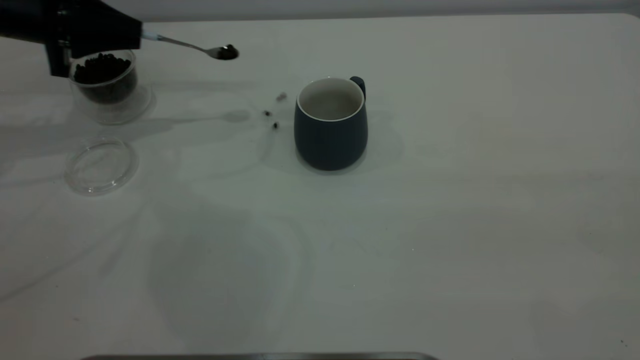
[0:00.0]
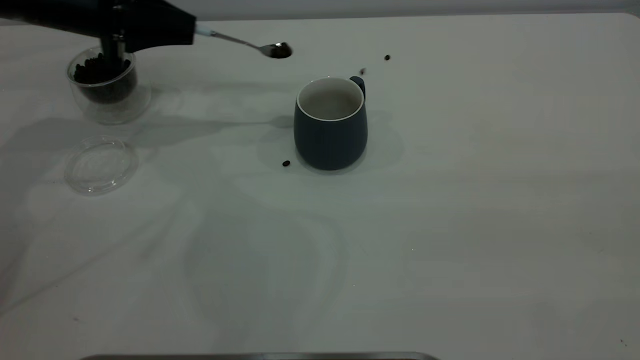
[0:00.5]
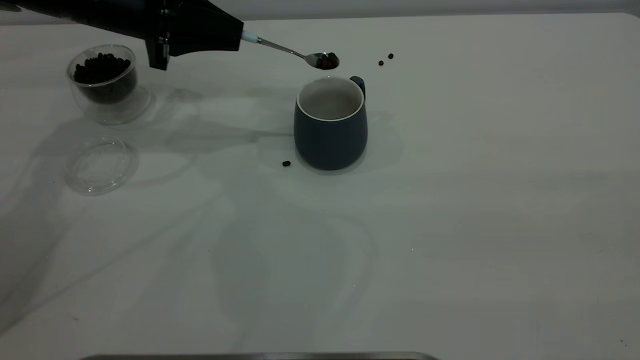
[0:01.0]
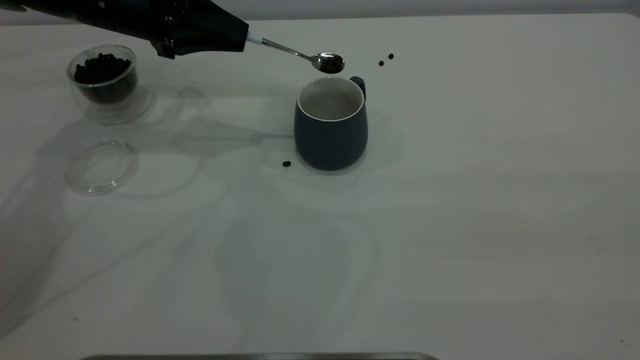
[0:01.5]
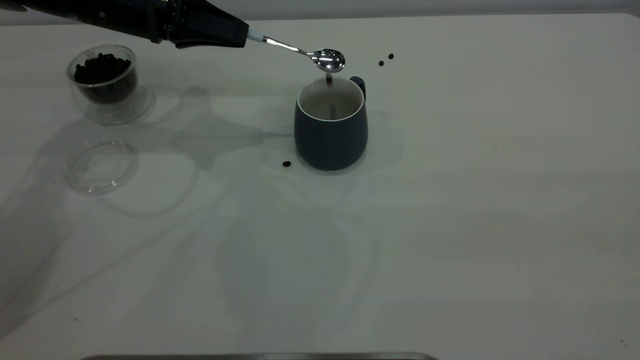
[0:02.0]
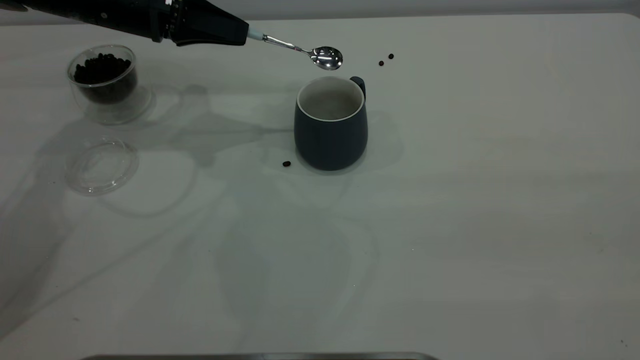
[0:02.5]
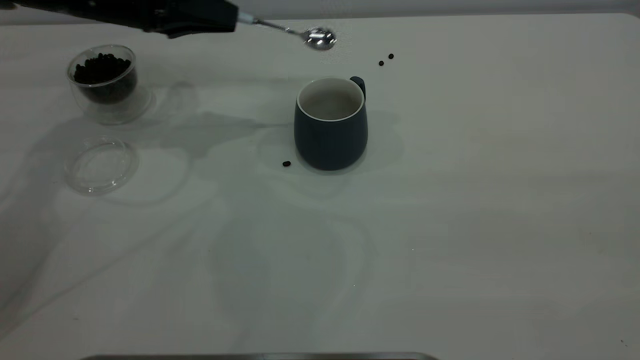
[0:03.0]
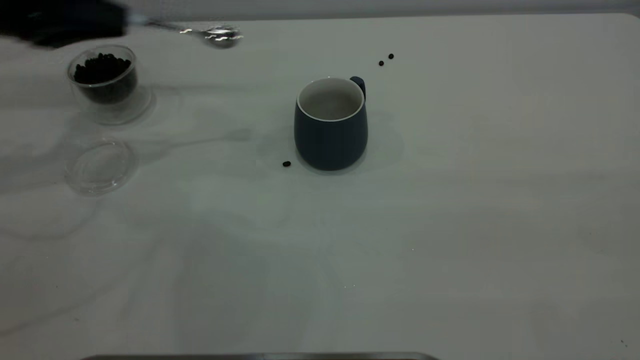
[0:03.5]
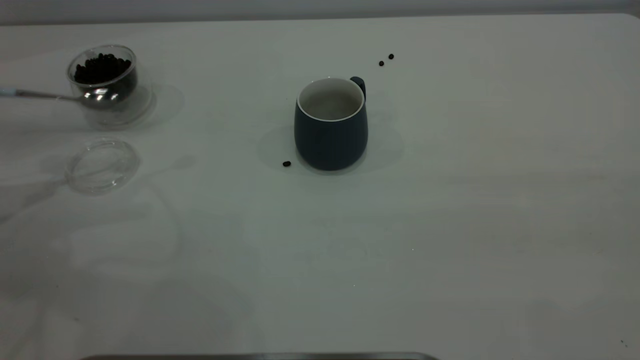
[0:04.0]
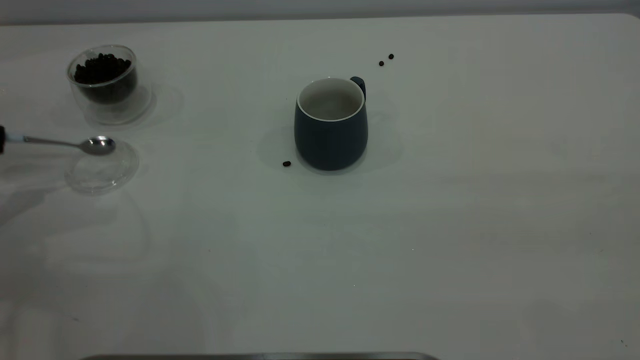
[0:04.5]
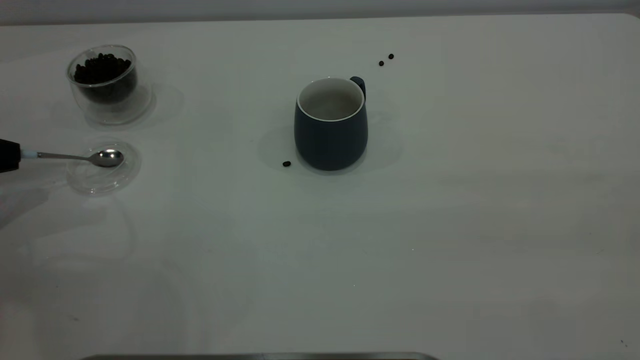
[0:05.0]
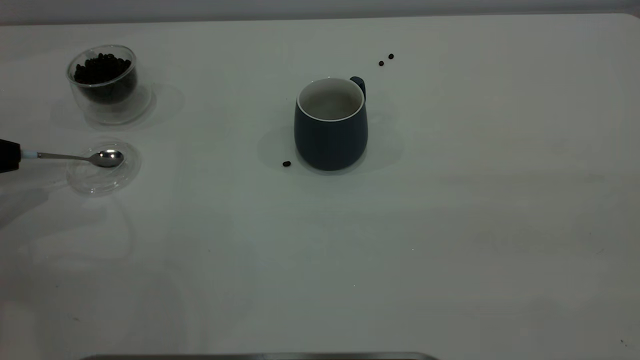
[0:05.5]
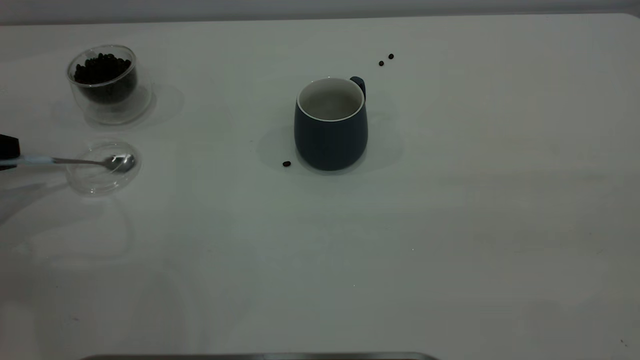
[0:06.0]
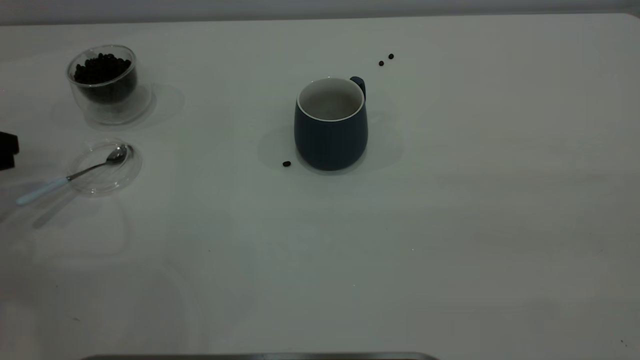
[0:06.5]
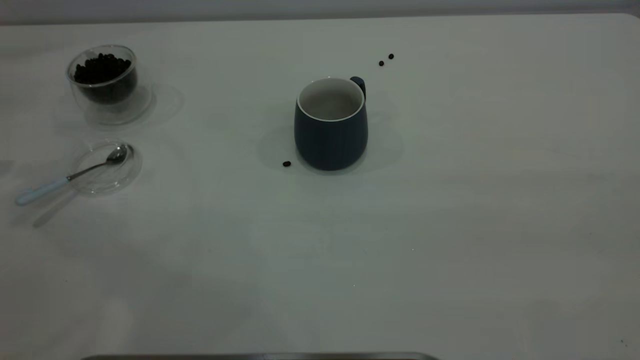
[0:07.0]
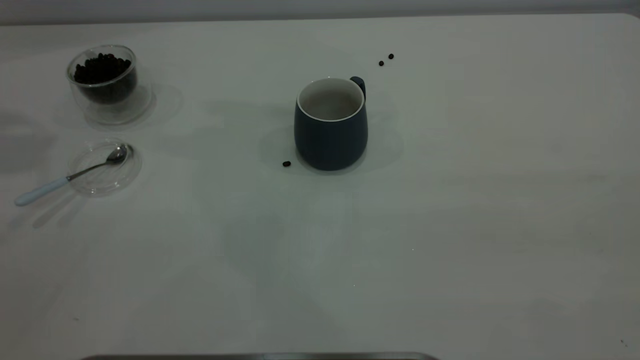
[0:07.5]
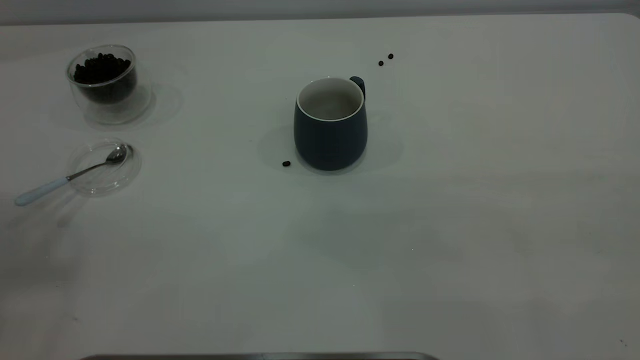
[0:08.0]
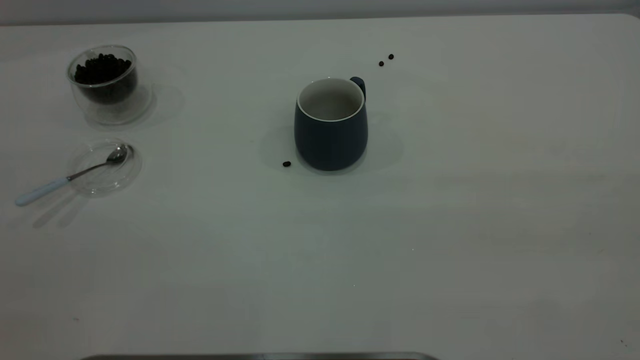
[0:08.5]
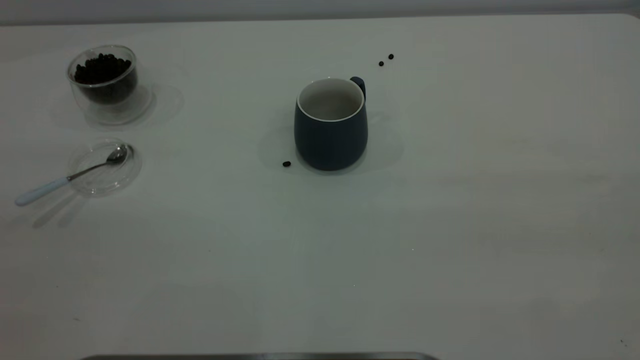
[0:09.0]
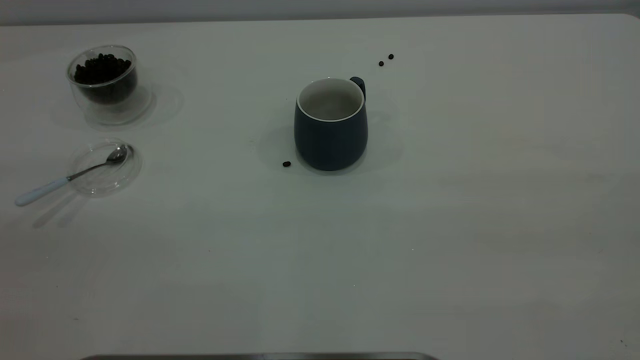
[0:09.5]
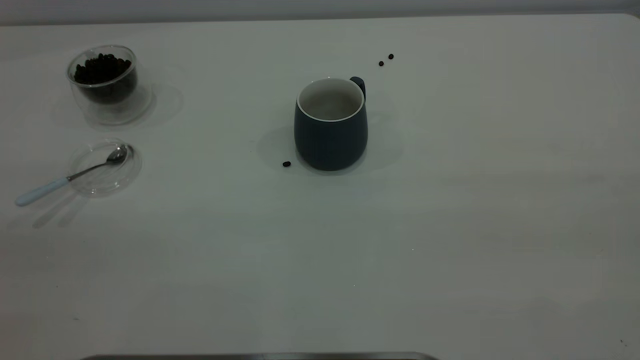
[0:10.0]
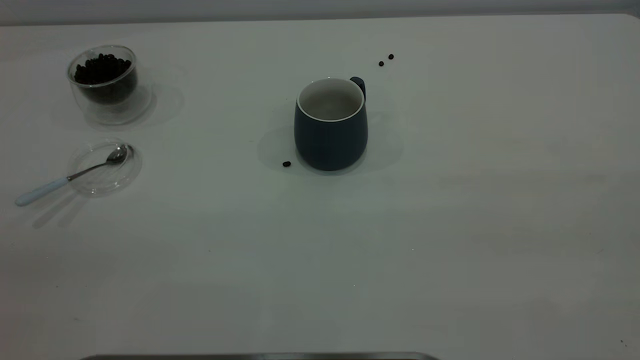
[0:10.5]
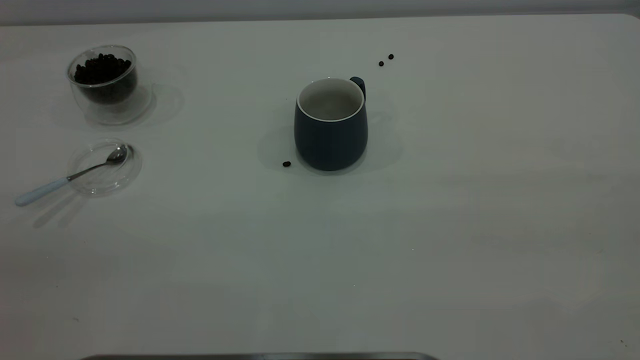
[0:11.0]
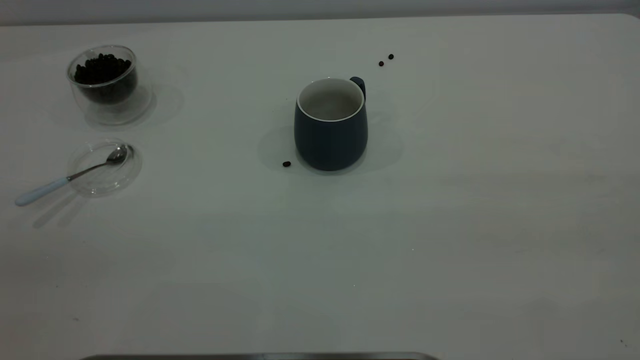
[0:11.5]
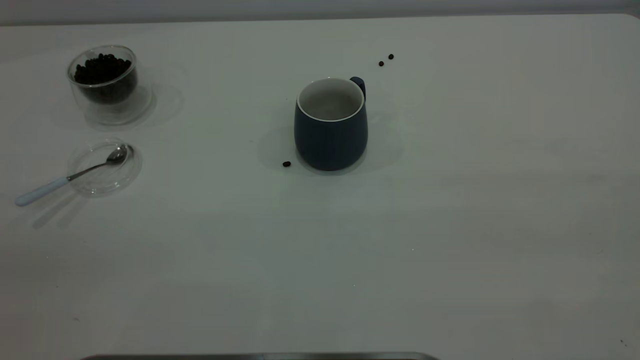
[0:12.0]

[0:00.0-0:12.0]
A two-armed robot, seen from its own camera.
Task of the whole recording: the right gripper place the grey cup in the center of the table, the left gripper take the blue spoon from the cup lid and scoop out the coffee beans from the coffee cup and put them into the grey cup, the left gripper put the spoon back into the cup lid.
Step, 0:00.0 to 0:02.5: Scoop a spoonful of beans into the cup.
Step, 0:03.0 to 0:06.5: Place the spoon back in its original place.
0:00.0 to 0:02.0: The left gripper travels to the right by approximately 10 cm.
0:02.0 to 0:04.0: The left gripper shifts about 25 cm to the left and backward.
0:04.0 to 0:06.0: The left gripper is displaced downward by approximately 5 cm.
0:06.0 to 0:08.0: The left gripper goes some 40 cm upward.
